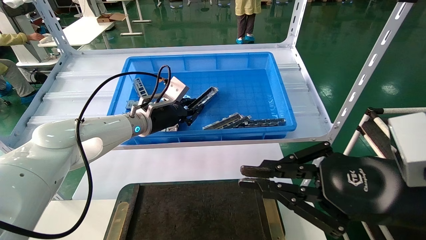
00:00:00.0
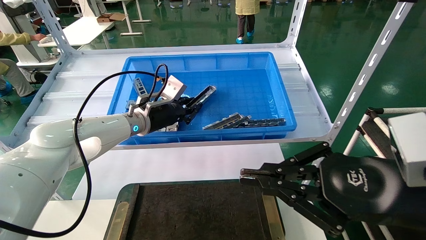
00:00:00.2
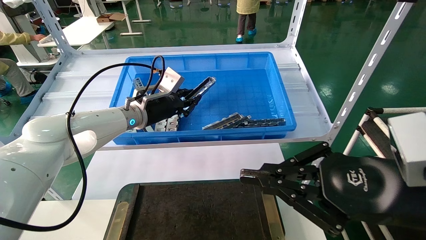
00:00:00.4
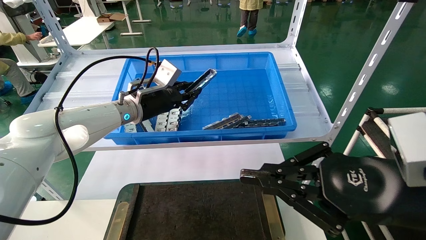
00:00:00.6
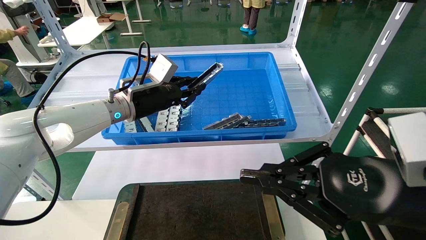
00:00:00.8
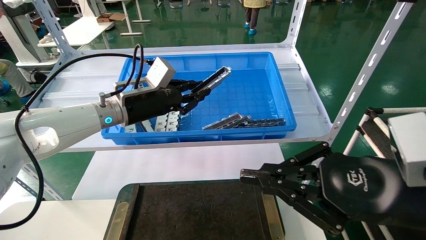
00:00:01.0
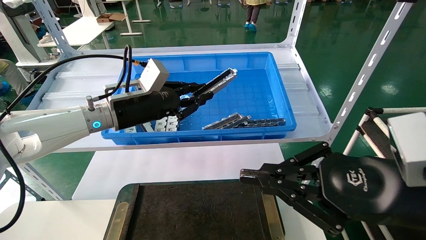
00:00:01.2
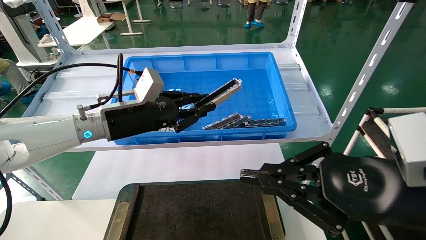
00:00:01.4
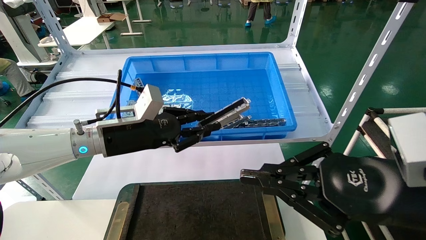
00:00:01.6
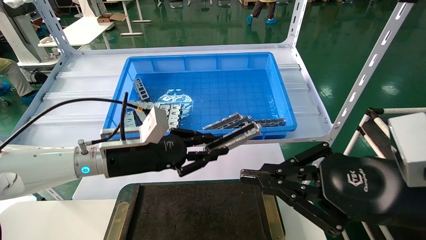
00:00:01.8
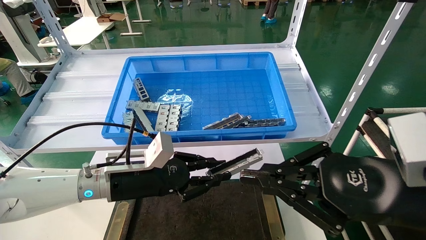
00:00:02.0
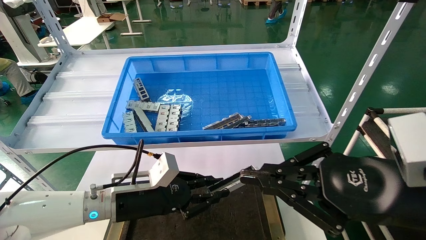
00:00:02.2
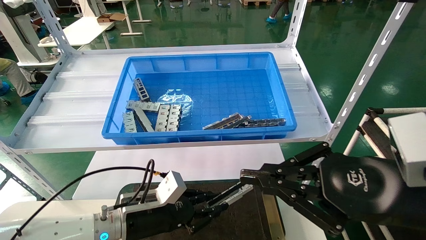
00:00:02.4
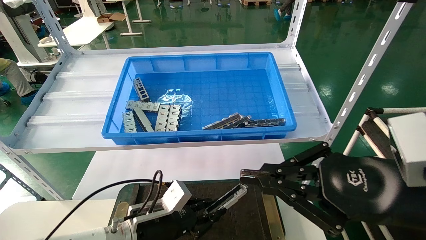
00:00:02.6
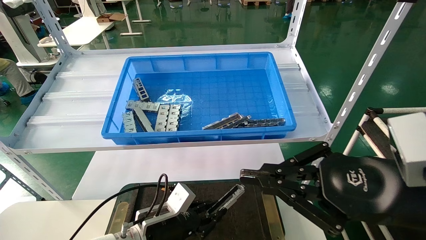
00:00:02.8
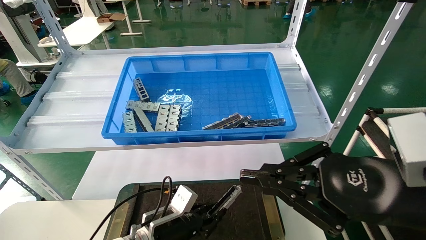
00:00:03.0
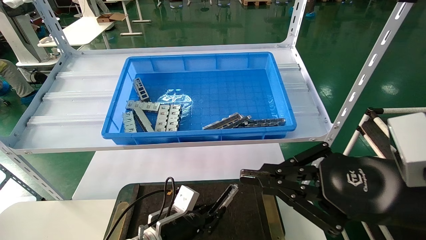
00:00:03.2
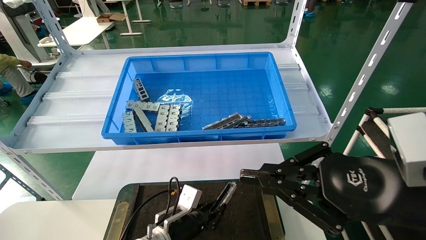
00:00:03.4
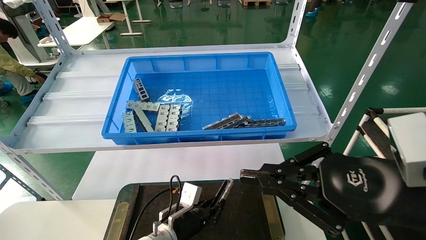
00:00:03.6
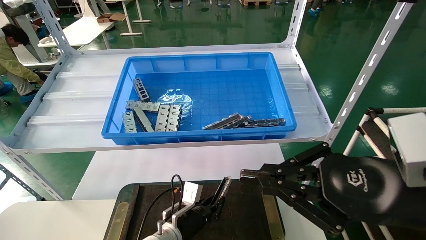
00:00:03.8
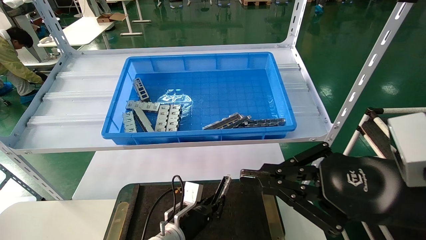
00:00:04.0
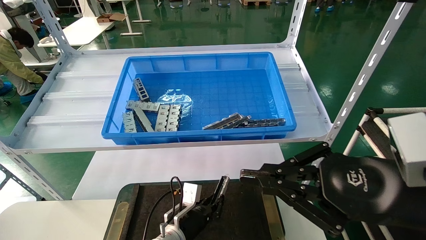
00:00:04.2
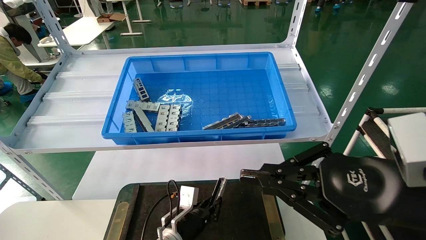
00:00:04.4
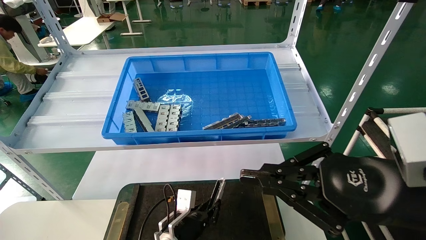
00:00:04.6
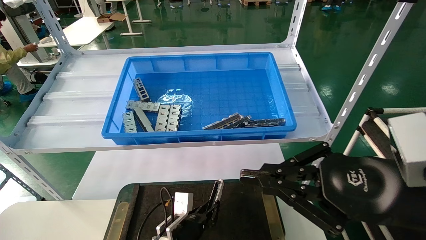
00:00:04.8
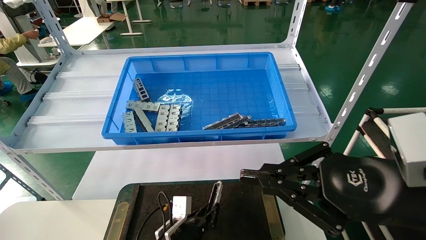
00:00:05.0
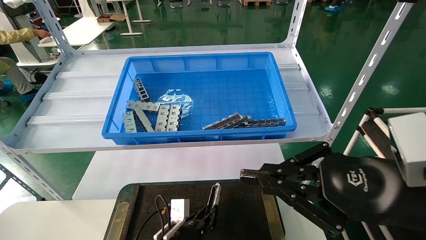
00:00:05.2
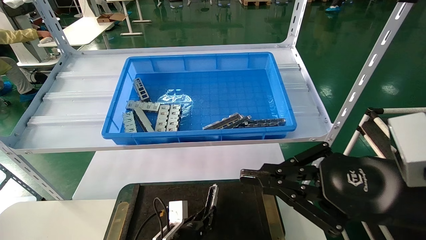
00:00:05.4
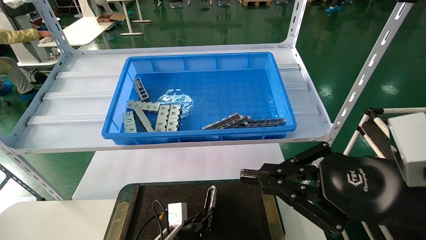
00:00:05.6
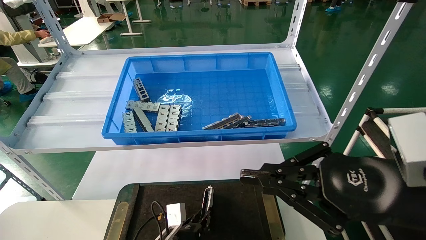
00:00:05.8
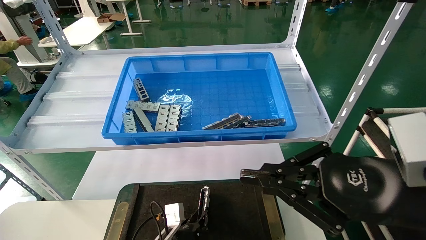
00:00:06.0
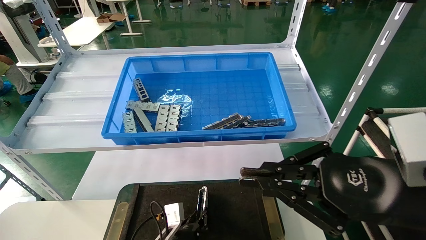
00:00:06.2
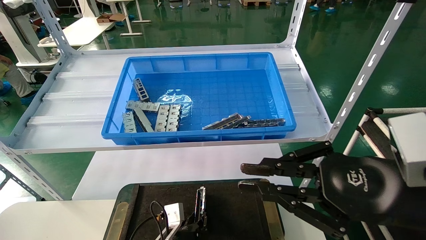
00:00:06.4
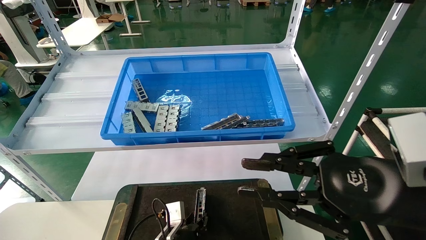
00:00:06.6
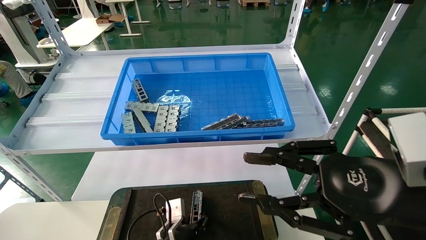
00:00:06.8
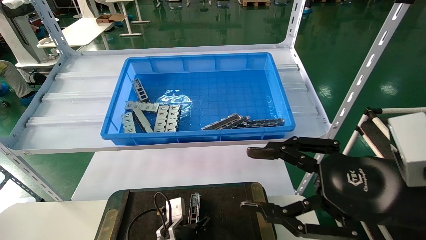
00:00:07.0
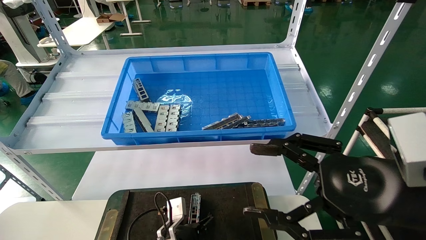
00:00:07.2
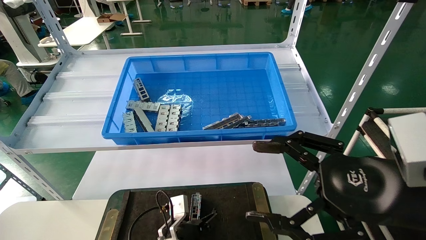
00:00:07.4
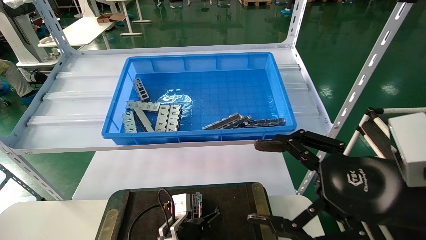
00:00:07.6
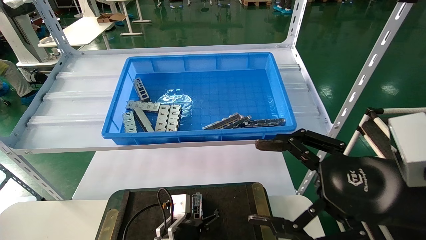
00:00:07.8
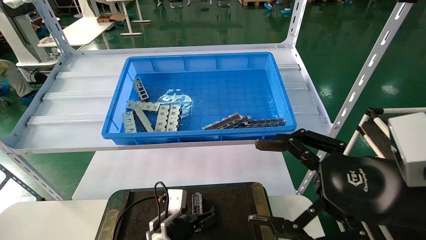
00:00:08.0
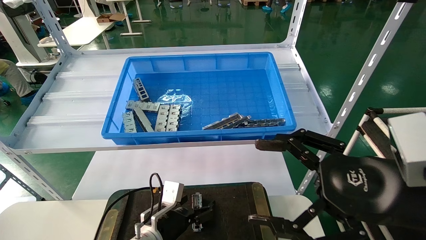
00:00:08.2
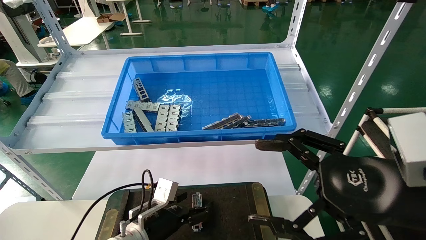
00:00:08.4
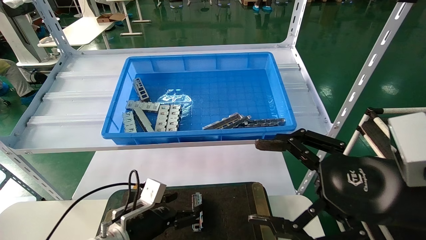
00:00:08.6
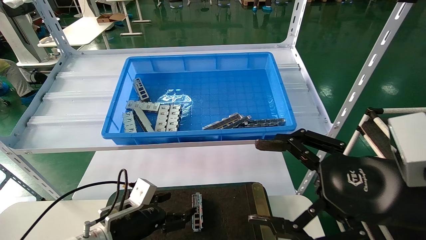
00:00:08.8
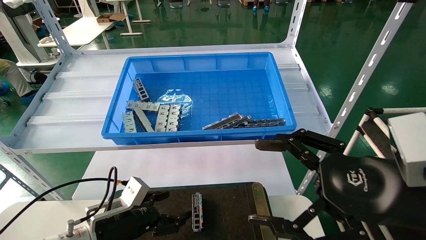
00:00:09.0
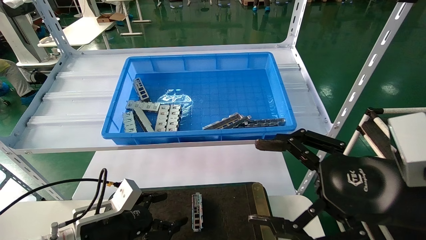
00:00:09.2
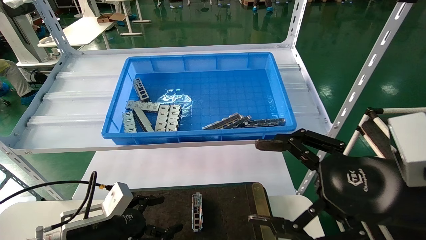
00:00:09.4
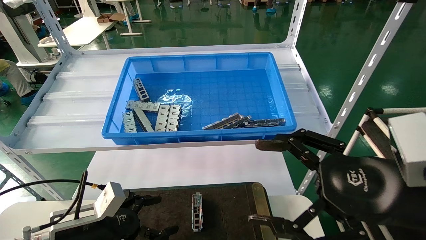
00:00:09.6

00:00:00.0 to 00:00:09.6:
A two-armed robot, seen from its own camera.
Task of the whole recording: Grasp the part with one hand and place it on the black container.
Step, 00:00:01.2 to 00:00:06.8: Place the front USB bracket into the box.
00:00:00.0 to 00:00:01.6: The left gripper goes about 10 cm backward.
00:00:01.6 to 00:00:03.2: The left gripper is displaced downward by approximately 25 cm.
00:00:03.2 to 00:00:04.8: The left gripper shifts approximately 5 cm downward.
00:00:04.8 to 00:00:06.4: There are only small adjustments of the grippers.
00:00:06.4 to 00:00:08.0: The right gripper opens. Meanwhile the left gripper is displaced upward by roughly 5 cm, and opens.
00:00:08.0 to 00:00:09.6: The left gripper moves to the left, upward and backward, about 20 cm.
